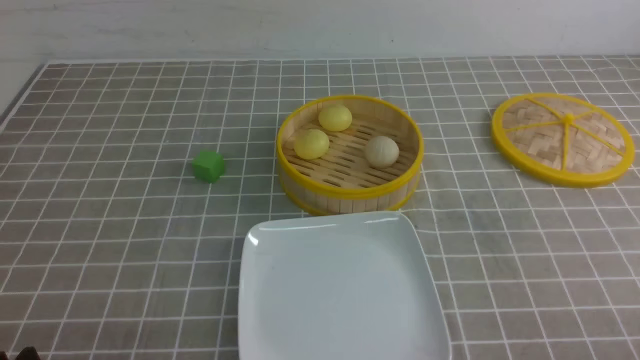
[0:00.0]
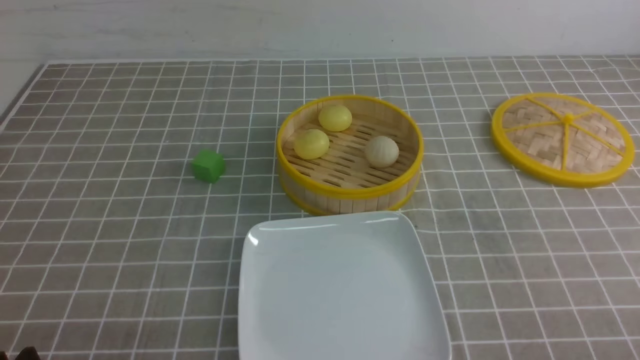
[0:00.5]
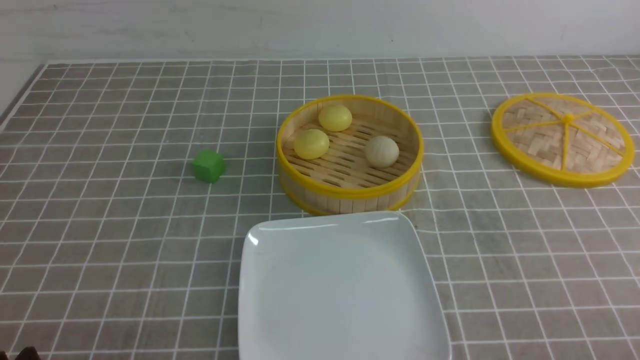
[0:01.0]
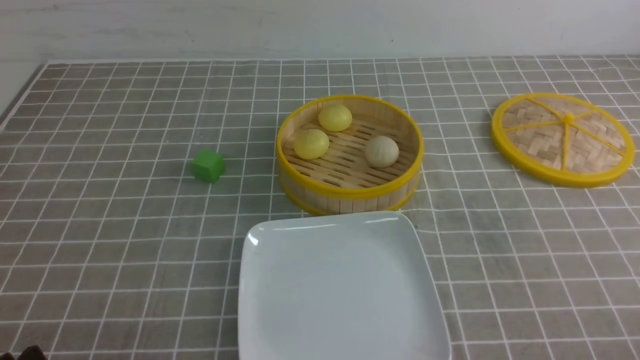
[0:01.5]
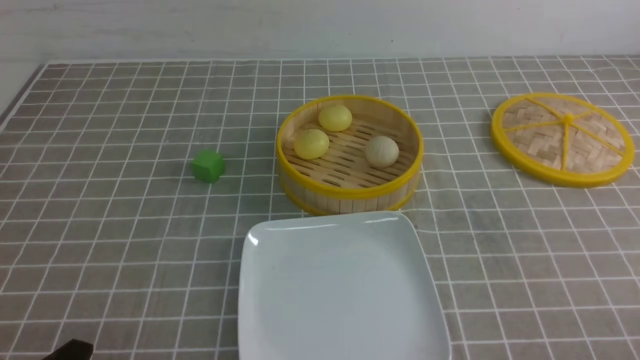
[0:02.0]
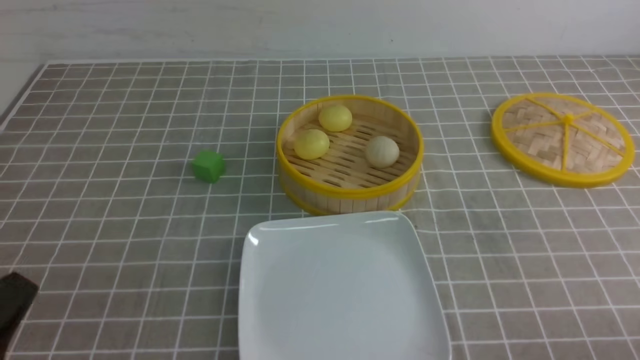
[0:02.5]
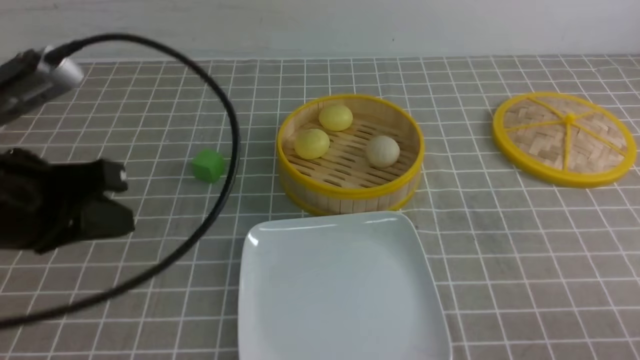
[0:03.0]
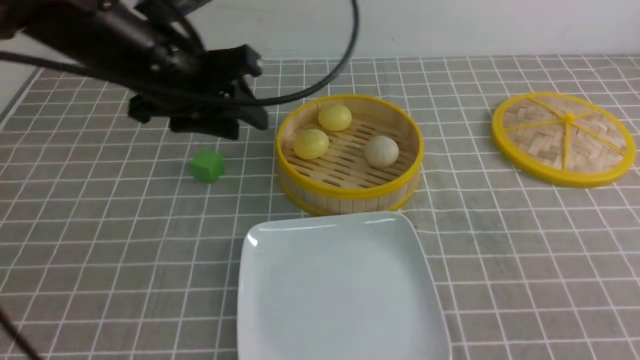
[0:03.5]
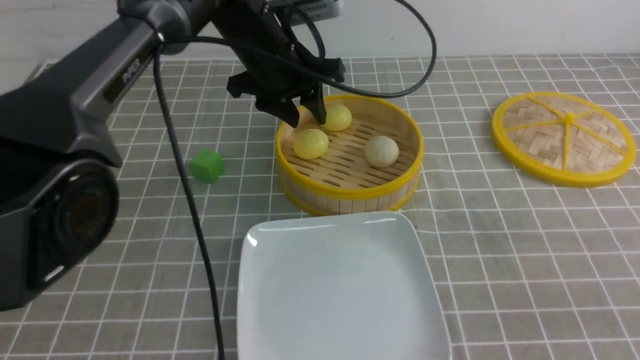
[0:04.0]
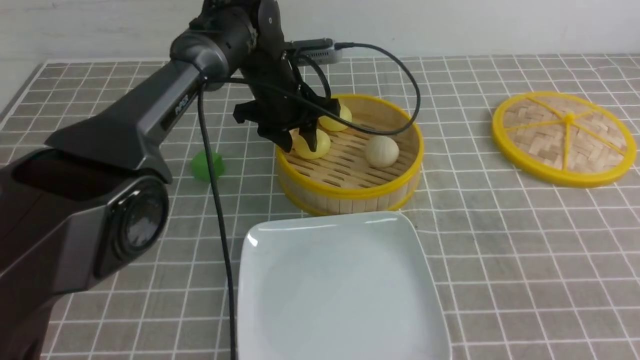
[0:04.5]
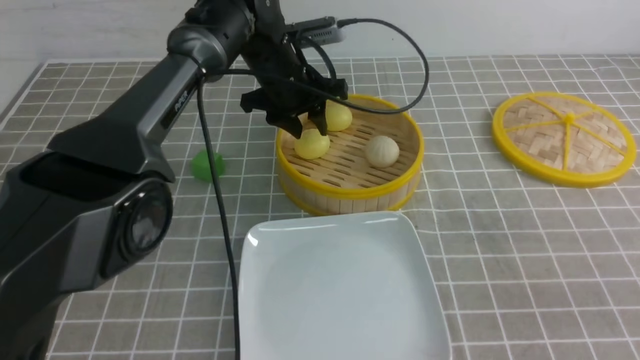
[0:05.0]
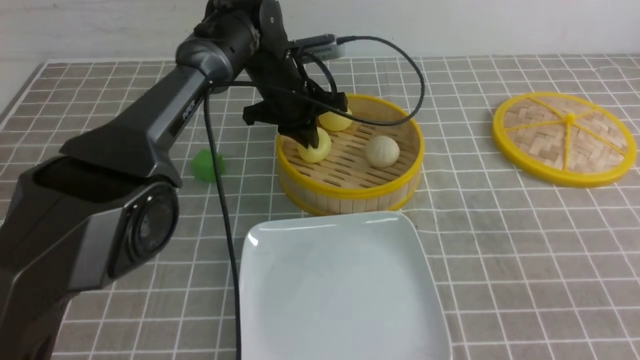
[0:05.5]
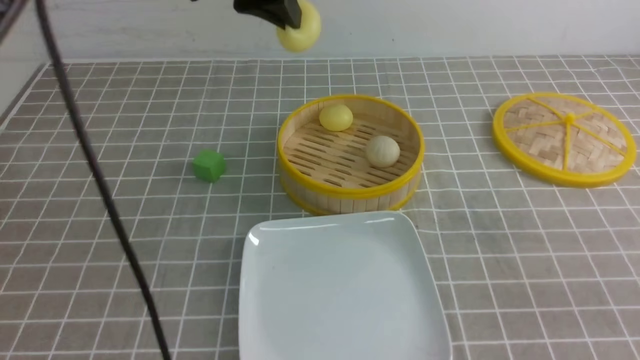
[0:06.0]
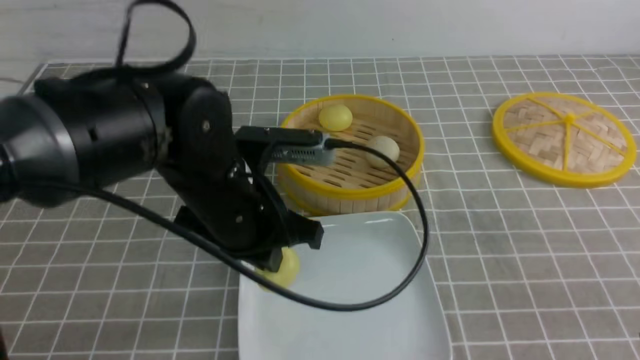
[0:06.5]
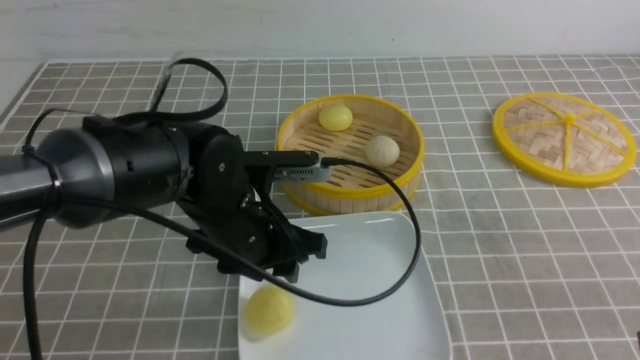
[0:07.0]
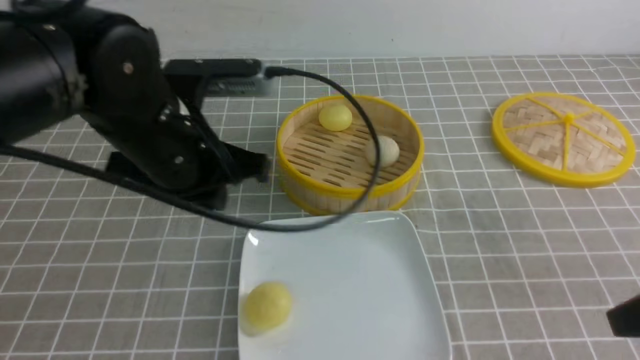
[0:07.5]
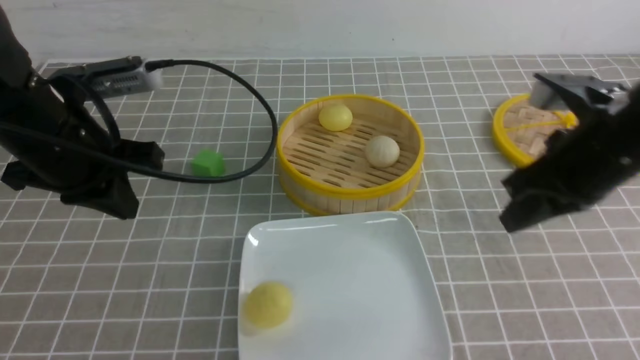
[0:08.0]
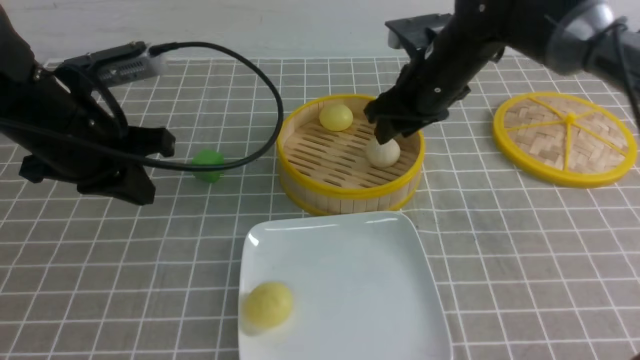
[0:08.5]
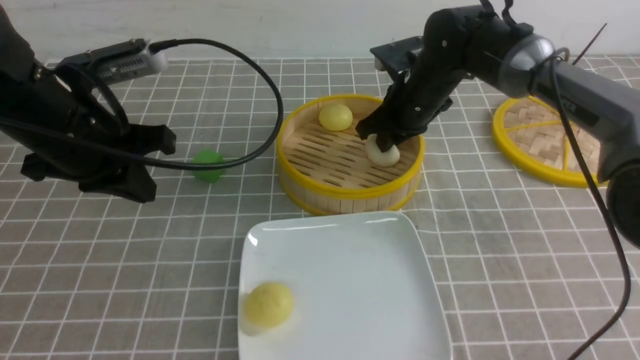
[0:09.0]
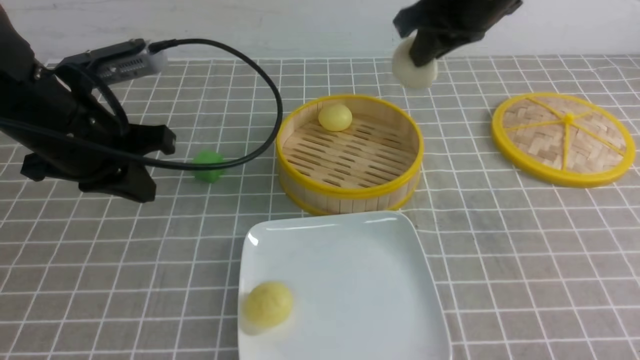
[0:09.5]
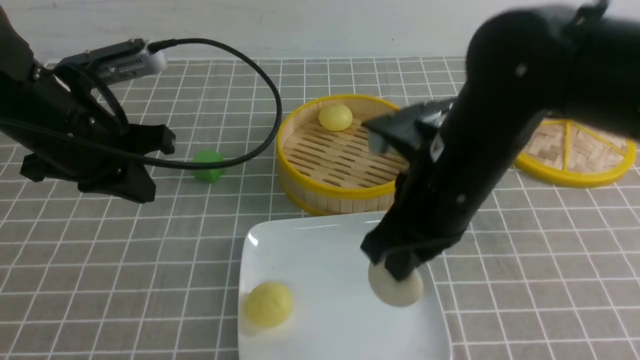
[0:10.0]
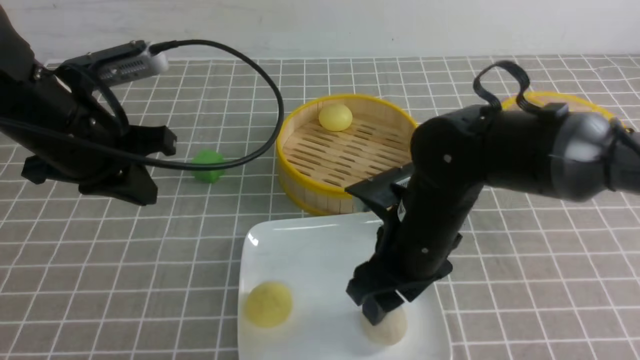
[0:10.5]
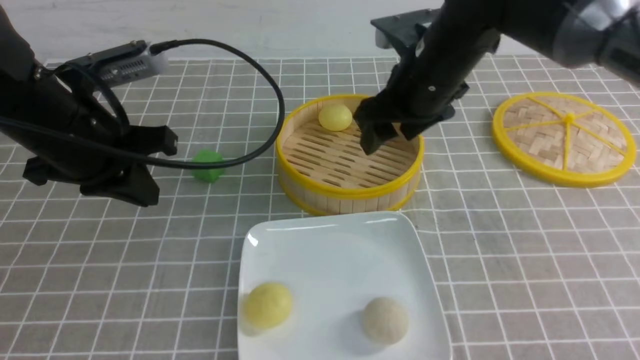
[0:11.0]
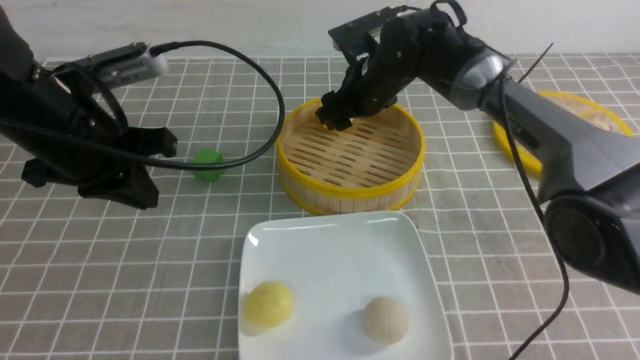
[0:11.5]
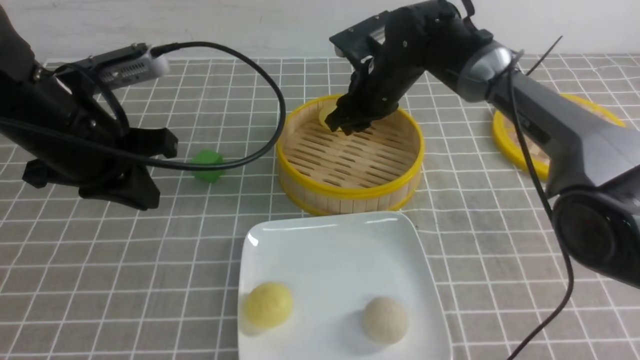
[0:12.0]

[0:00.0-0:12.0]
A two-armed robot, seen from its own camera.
Step, 0:00.0 to 0:05.5: use the left arm to grab the steamed stuffed bun that is closest to it.
Step, 0:06.0 to 0:06.5: use the left arm to put the steamed stuffed bun into the plate.
Step, 0:07.0 to 0:09.0: use the right arm to grab the steamed stuffed bun that is closest to it.
Step, 0:09.5 to 0:10.5: use the right arm to put the steamed stuffed bun into the plate.
0:02.0 to 0:04.0: The left gripper moves forward and to the right, some 40 cm, and opens its fingers; the right gripper goes roughly 10 cm upward and forward, and closes up.
0:04.0 to 0:06.0: The left gripper shifts approximately 15 cm upward and backward, and closes its fingers.
0:06.0 to 0:08.0: The right gripper travels forward and to the left by about 20 cm. Meanwhile the left gripper heads to the left, downward and backward, covering some 20 cm, and opens and closes again.
0:08.0 to 0:10.0: The right gripper heads to the left, covering roughly 15 cm, travels forward and back again, some 20 cm each way, and opens and closes again.
0:10.0 to 0:12.0: The right gripper heads forward, covering some 20 cm, and opens, then closes once more.

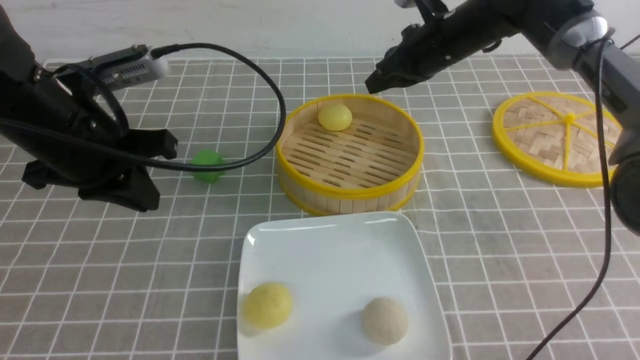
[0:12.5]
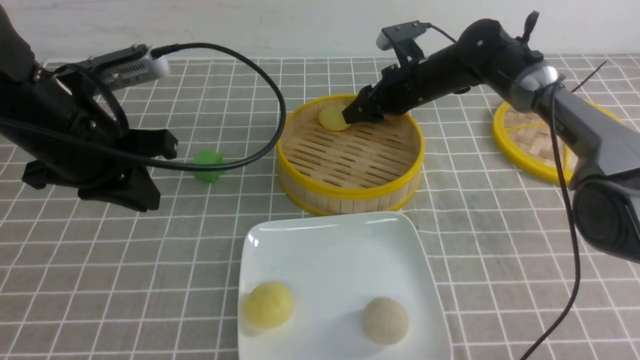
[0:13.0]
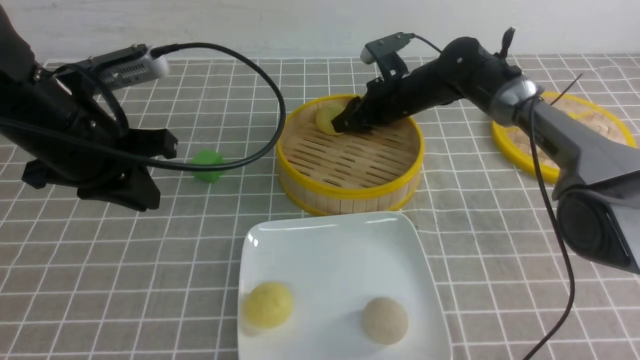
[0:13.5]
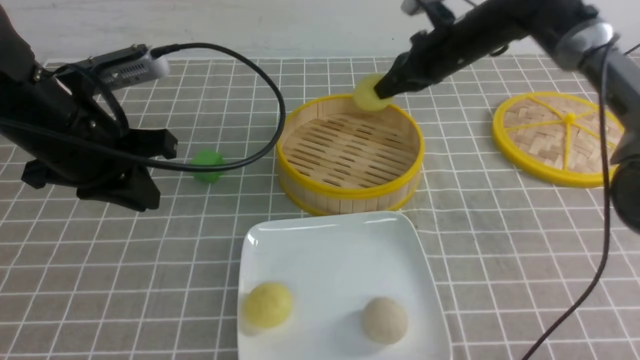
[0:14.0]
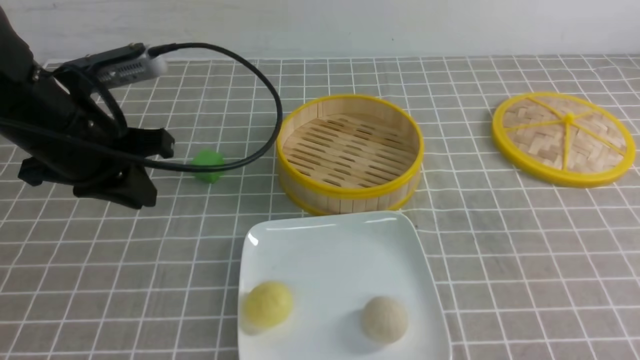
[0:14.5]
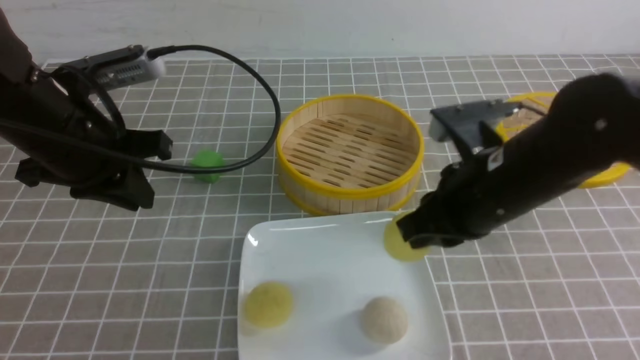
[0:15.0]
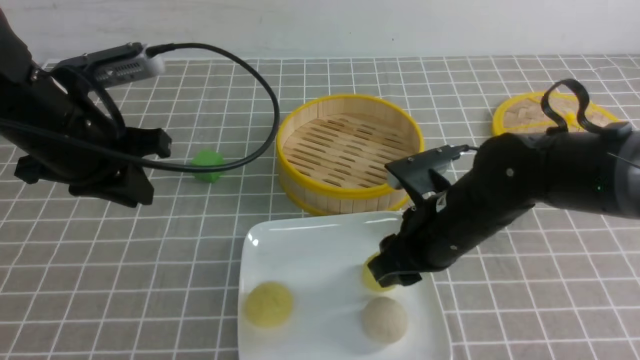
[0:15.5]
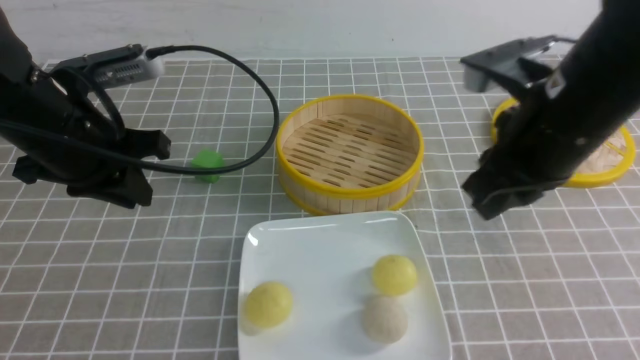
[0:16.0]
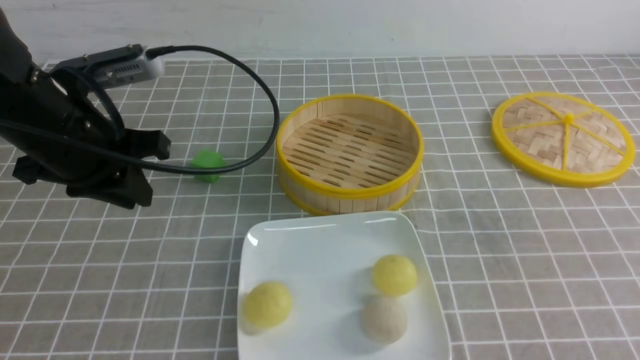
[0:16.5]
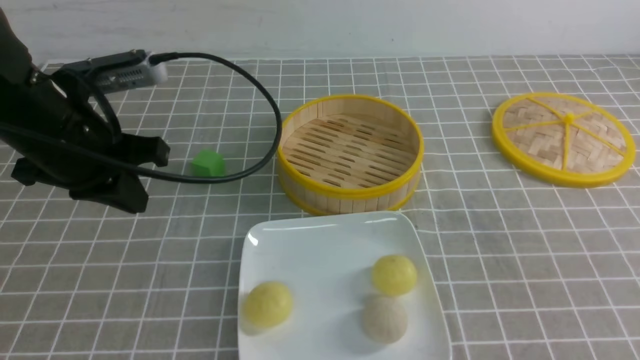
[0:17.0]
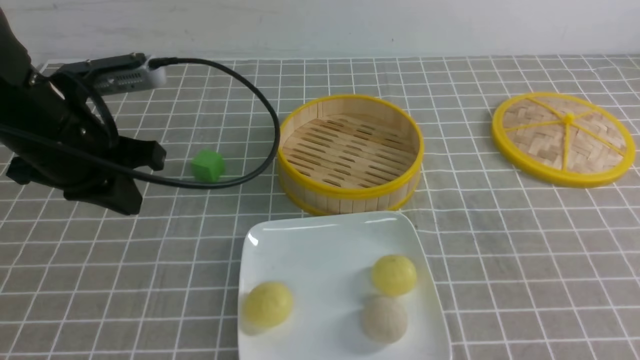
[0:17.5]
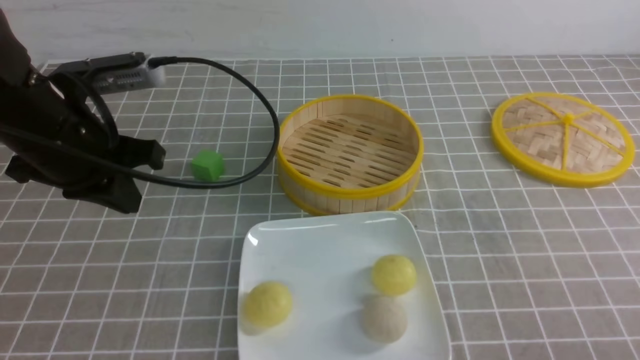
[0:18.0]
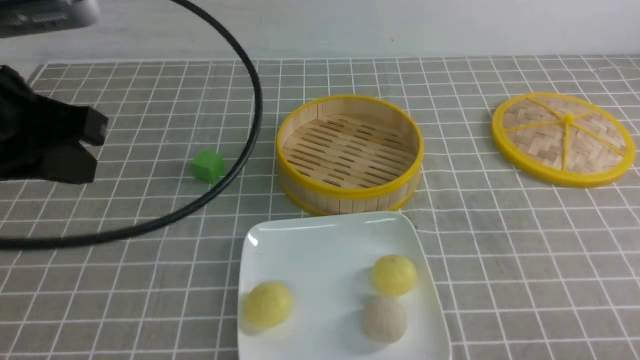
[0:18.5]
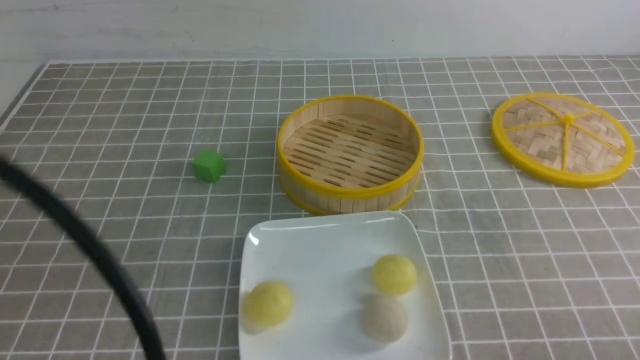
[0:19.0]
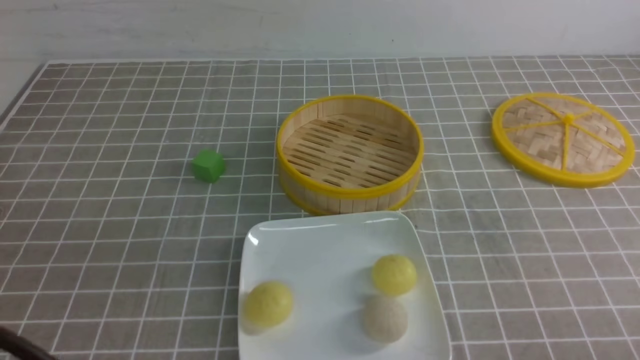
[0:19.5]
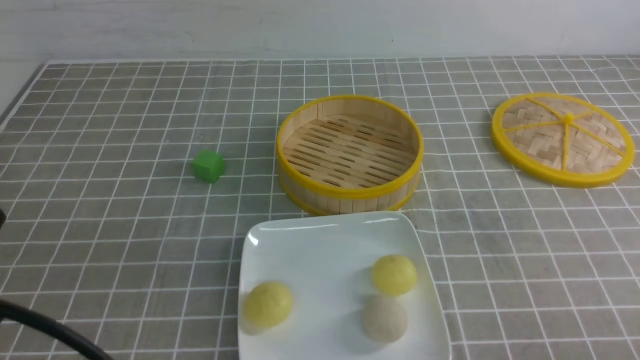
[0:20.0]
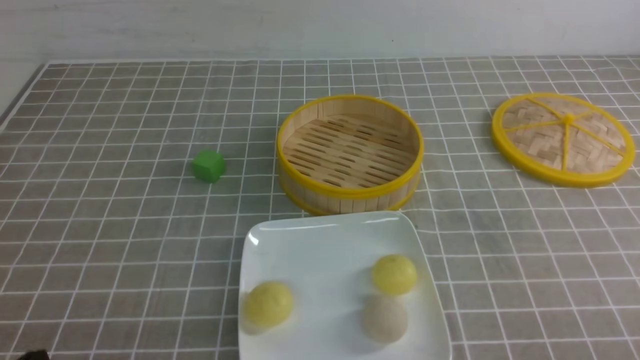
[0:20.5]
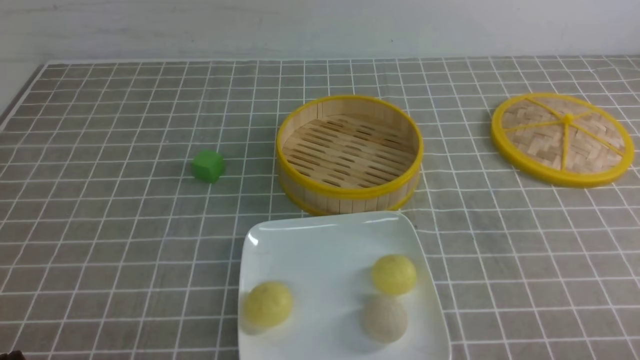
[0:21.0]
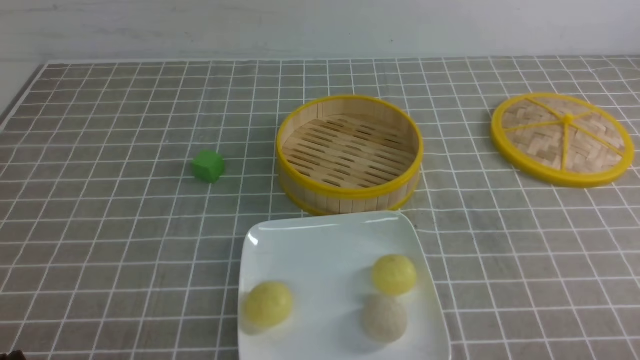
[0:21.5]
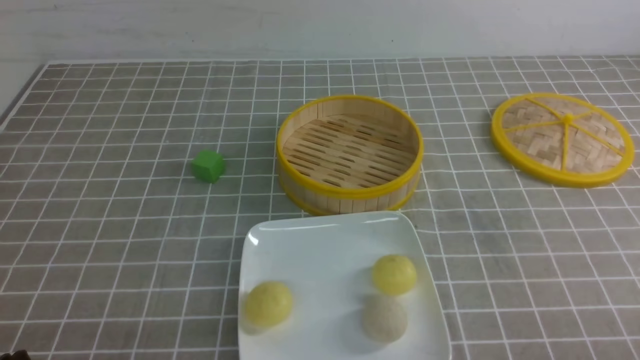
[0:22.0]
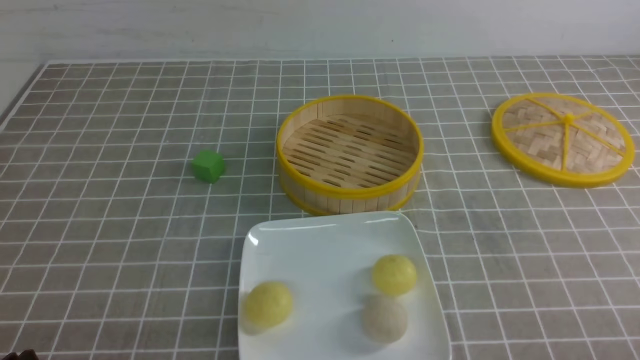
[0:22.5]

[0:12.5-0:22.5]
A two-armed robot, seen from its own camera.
Step, 0:14.0 to 0:15.5: use the right arm to put the steamed stuffed bun into the plate.
0:12.5 to 0:14.5: The right gripper travels upward and backward by roughly 25 cm, and opens, then closes again.
0:14.5 to 0:16.5: The right gripper is displaced backward by approximately 25 cm, and opens, then closes again.
0:16.5 to 0:18.5: The right gripper shifts approximately 20 cm downward, while the left gripper heads backward and upward, covering roughly 15 cm.
0:18.5 to 0:20.5: The left gripper shifts roughly 25 cm downward and backward.
